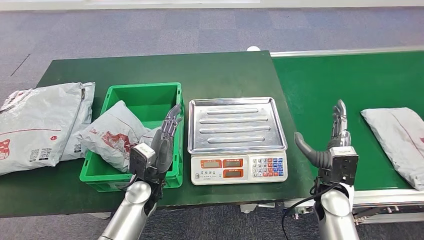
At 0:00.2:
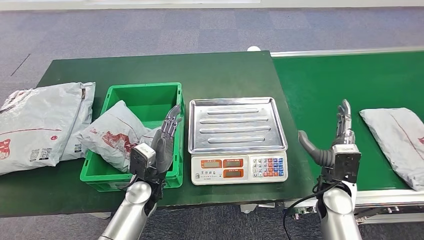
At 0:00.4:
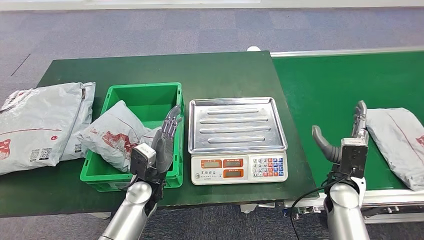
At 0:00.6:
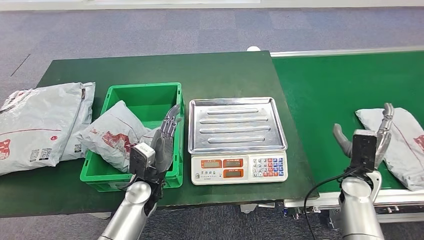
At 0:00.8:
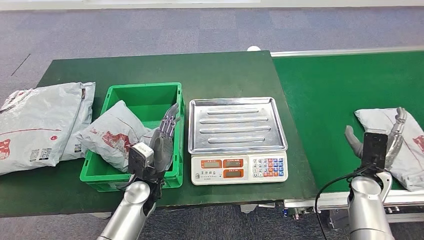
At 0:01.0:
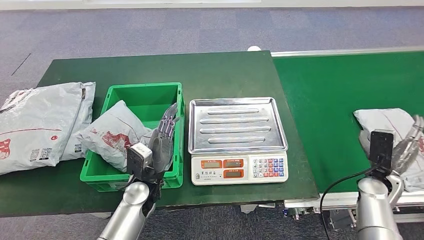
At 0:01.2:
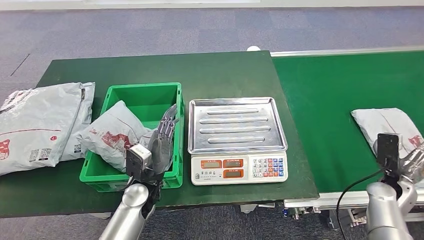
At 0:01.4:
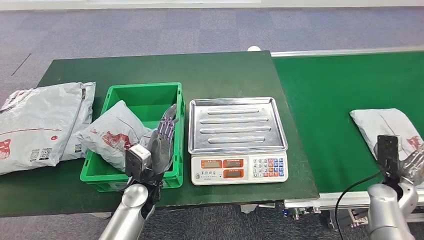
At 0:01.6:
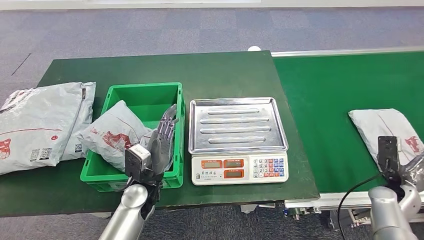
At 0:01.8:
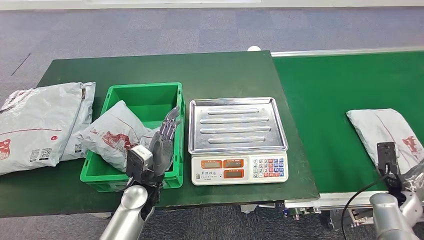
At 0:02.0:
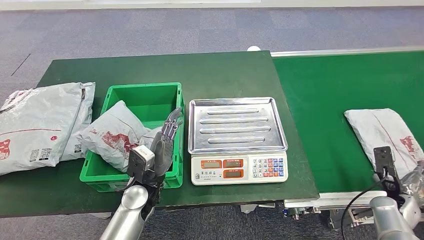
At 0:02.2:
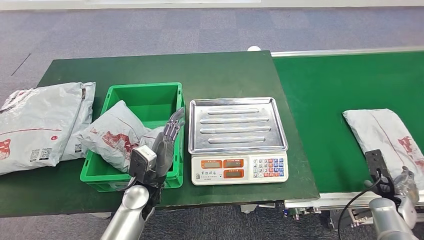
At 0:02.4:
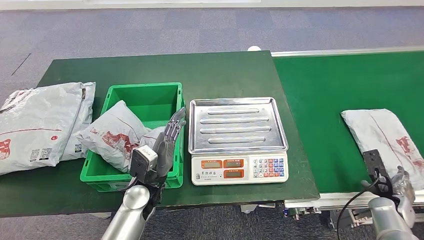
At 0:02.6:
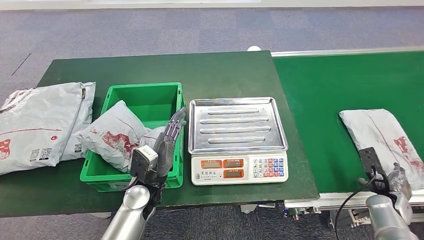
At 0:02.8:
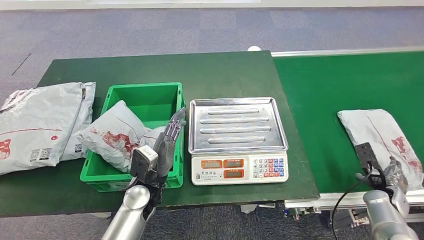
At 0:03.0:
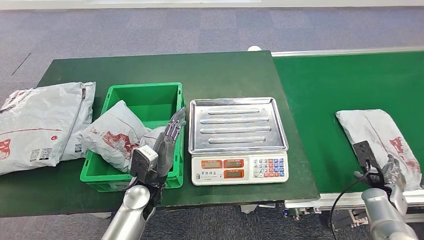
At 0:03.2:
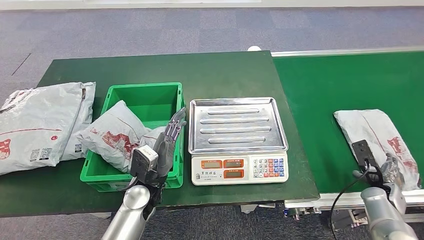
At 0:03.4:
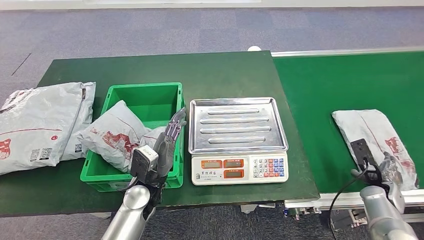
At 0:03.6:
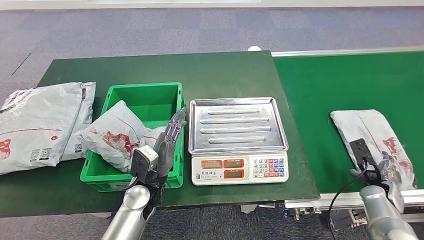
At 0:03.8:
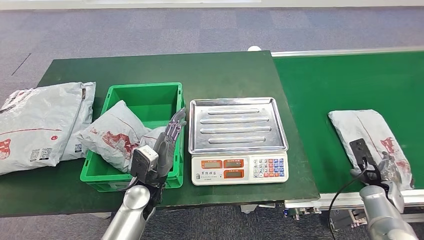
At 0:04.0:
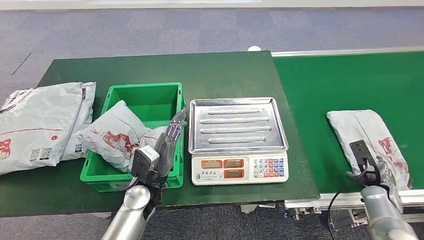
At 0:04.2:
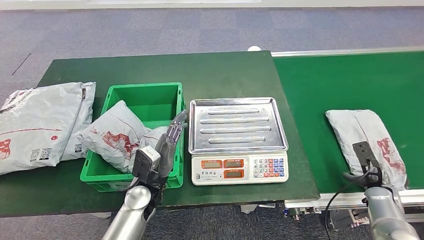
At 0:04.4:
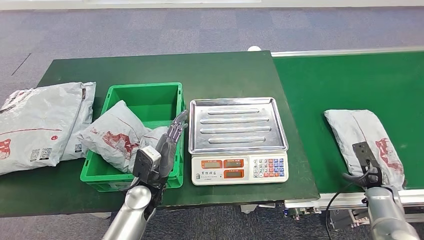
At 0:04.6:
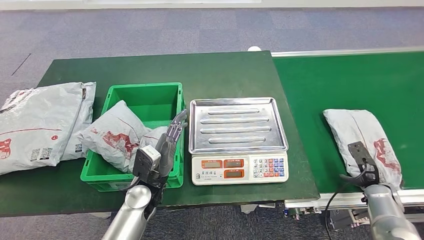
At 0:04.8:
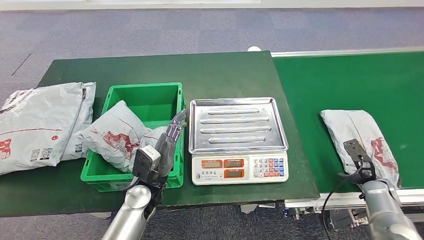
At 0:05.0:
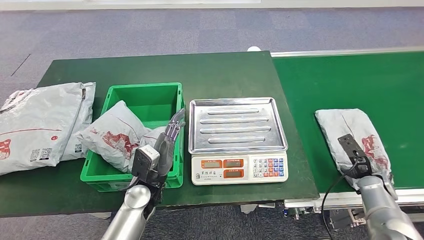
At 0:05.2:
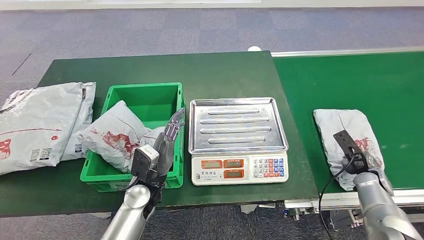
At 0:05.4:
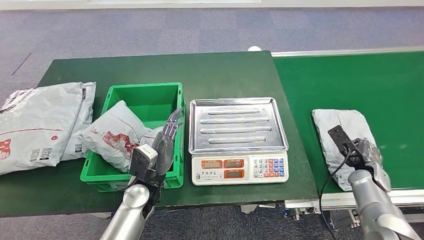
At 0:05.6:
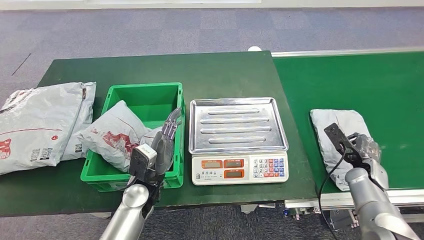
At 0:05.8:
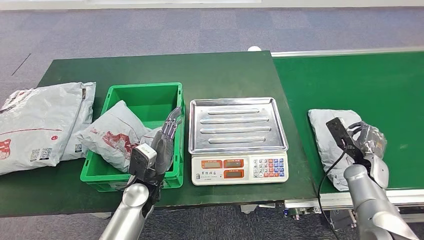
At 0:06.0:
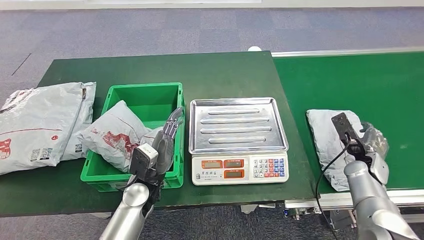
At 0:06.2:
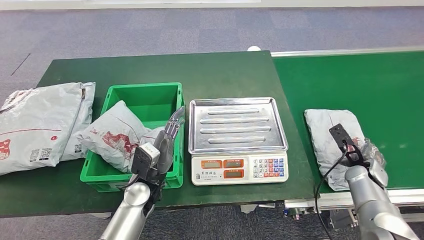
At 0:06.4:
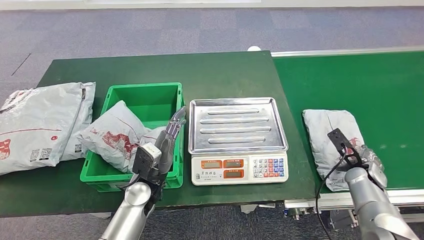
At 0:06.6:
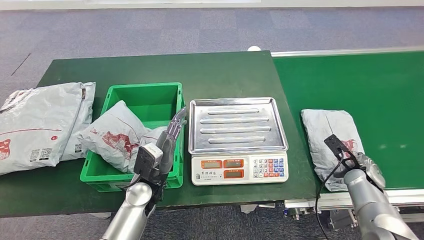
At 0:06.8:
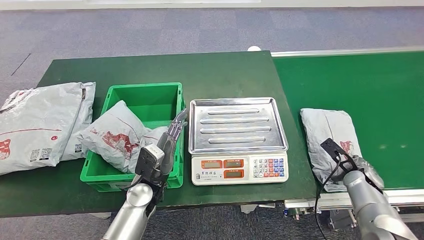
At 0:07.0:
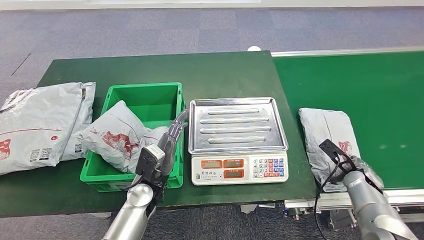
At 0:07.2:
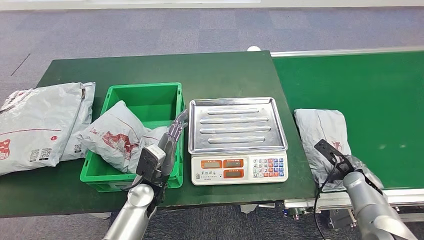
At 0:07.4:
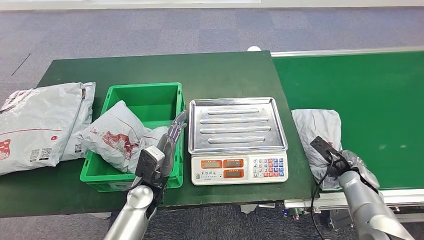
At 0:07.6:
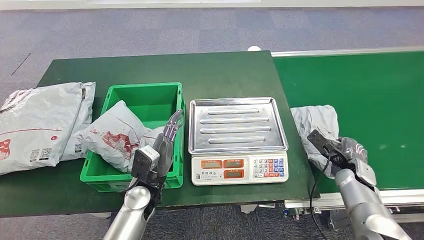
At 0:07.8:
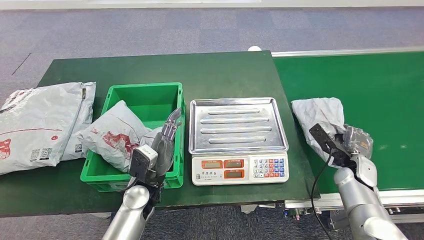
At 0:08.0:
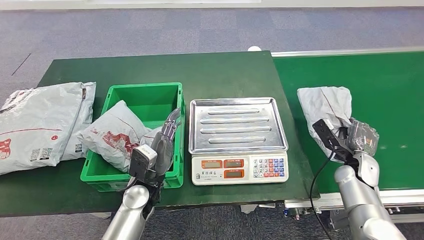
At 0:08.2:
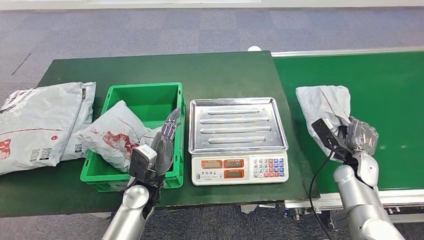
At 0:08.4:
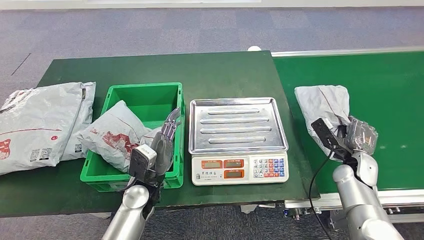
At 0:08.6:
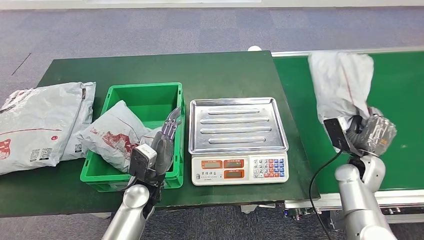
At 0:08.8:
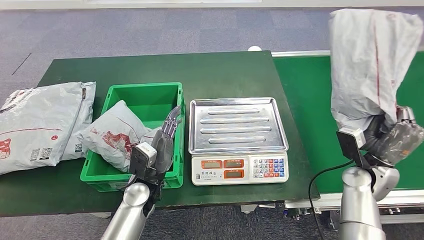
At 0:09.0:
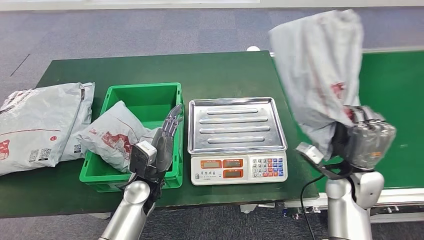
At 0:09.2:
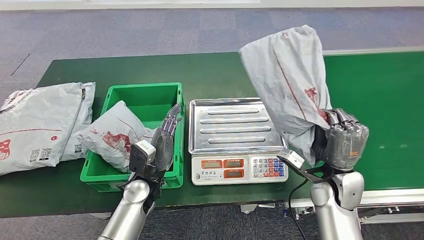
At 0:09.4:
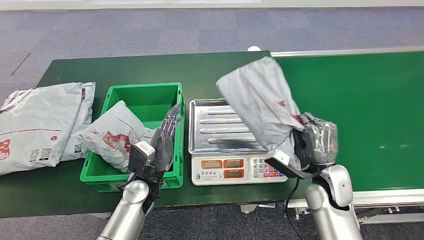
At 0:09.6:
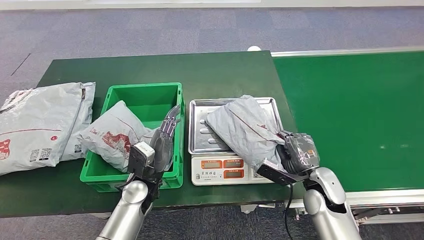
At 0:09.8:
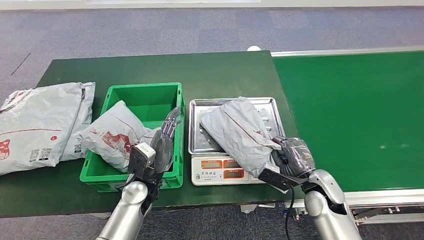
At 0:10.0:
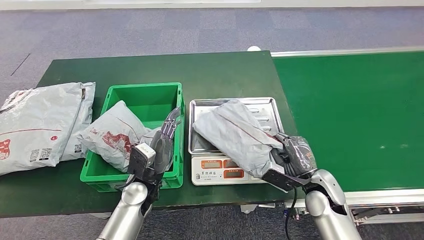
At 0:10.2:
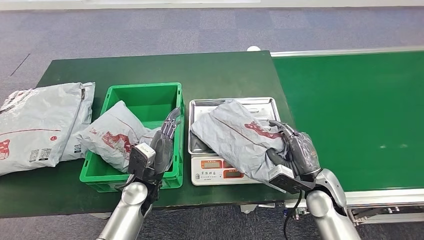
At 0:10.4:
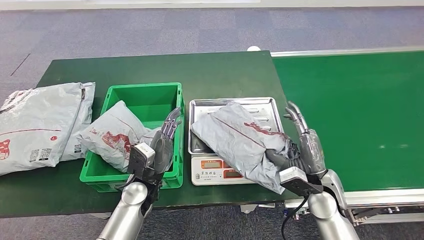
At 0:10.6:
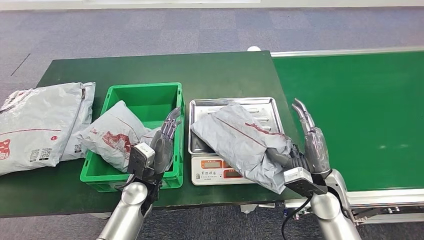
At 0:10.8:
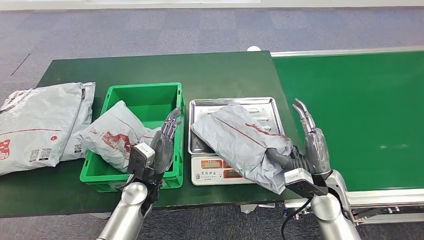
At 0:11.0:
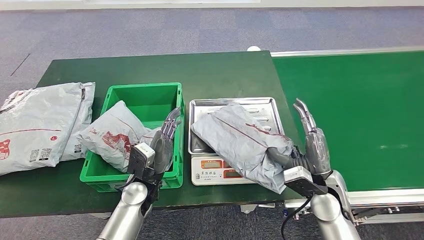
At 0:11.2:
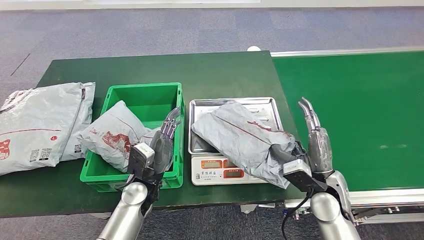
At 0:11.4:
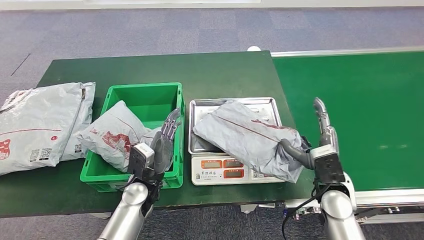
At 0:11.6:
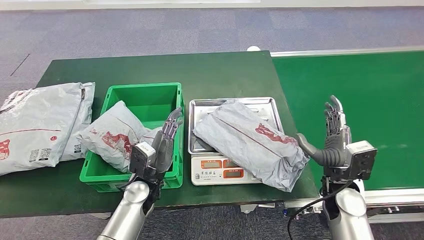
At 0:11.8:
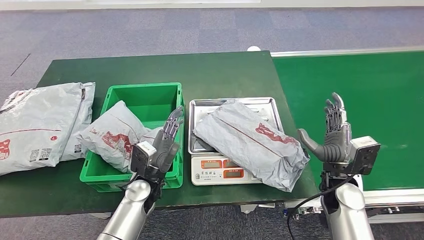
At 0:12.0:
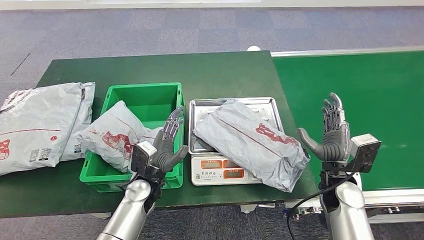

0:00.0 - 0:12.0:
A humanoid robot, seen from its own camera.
Step, 0:07.0 - 0:08.6: Pick up the parcel from the conveyor belt.
Step, 0:08.8 - 0:10.8: Place the parcel onto the inbound machine.
0:00.0 - 0:01.6: The right hand heads to the right, covering approximately 20 cm.
0:03.0 - 0:04.4: The hands stay close to where they were, moving slightly.
0:04.4 - 0:06.0: The right hand travels forward and upward by approximately 10 cm.

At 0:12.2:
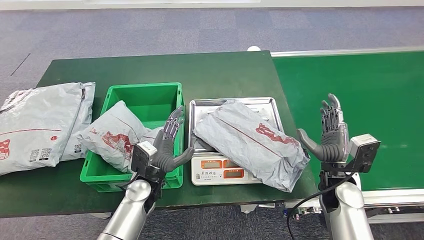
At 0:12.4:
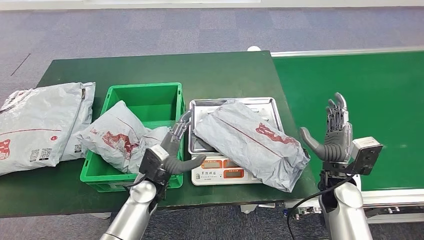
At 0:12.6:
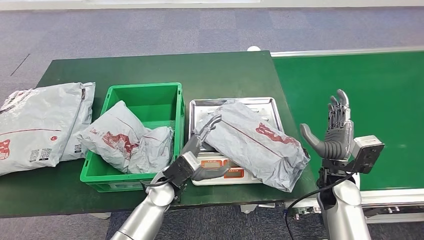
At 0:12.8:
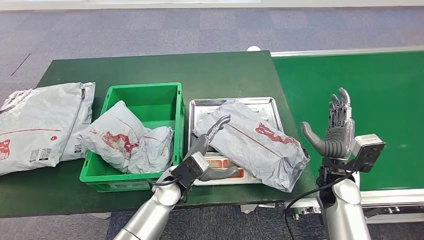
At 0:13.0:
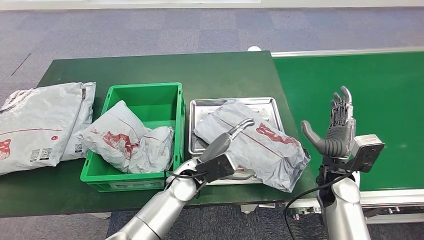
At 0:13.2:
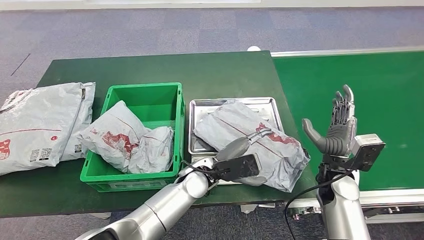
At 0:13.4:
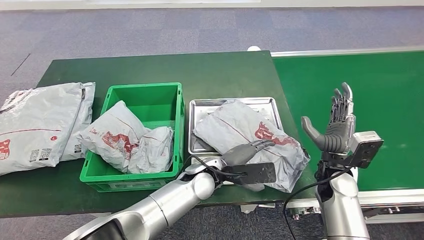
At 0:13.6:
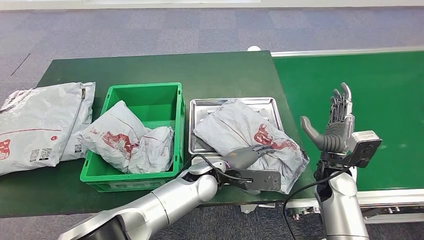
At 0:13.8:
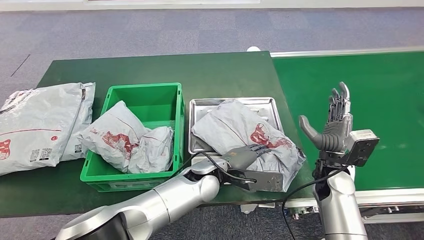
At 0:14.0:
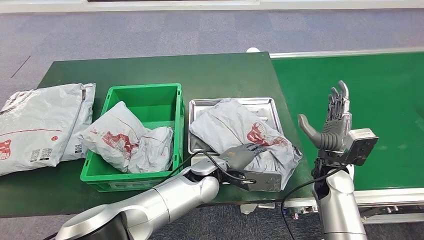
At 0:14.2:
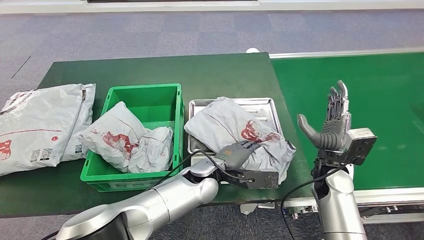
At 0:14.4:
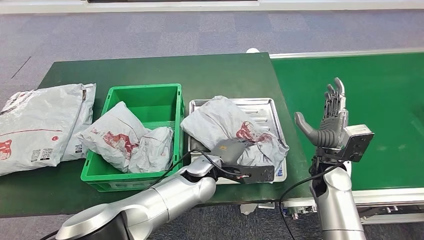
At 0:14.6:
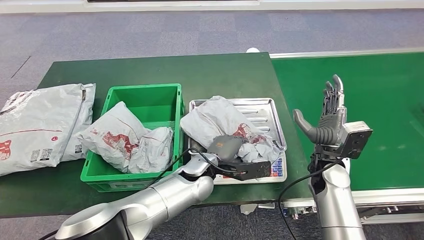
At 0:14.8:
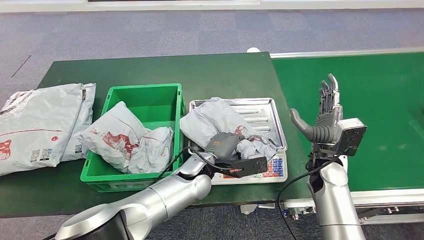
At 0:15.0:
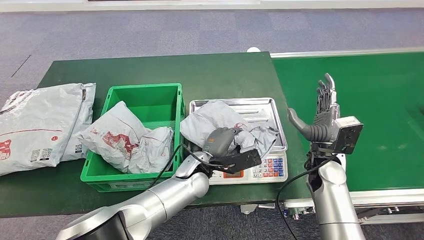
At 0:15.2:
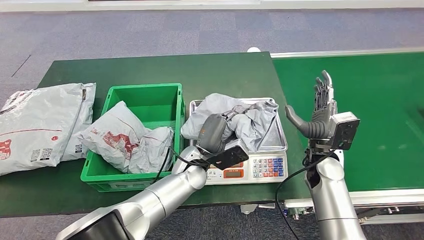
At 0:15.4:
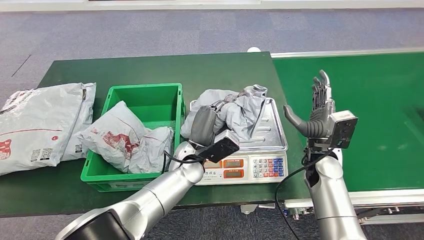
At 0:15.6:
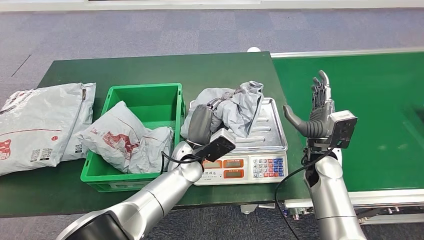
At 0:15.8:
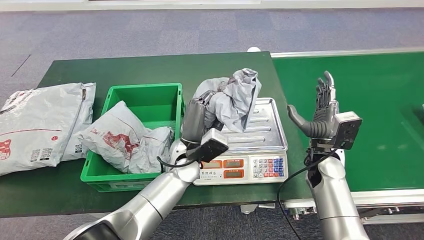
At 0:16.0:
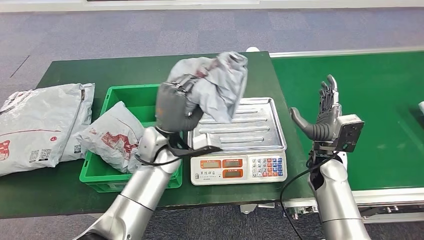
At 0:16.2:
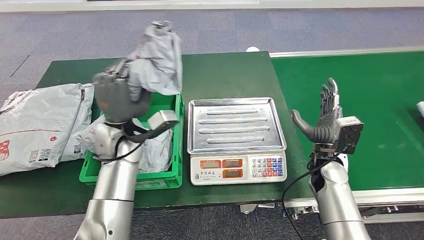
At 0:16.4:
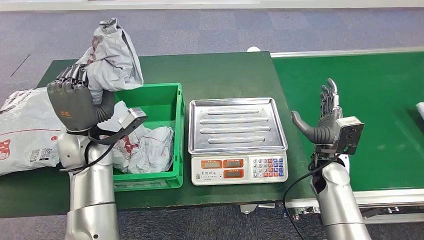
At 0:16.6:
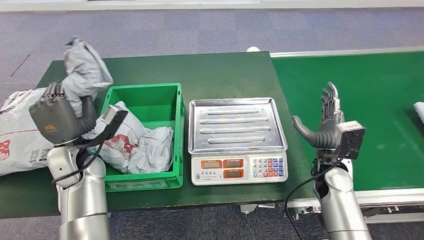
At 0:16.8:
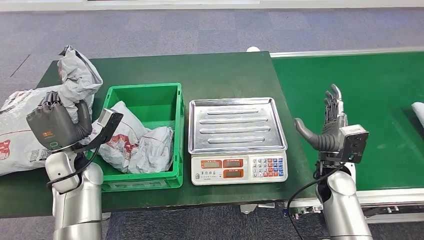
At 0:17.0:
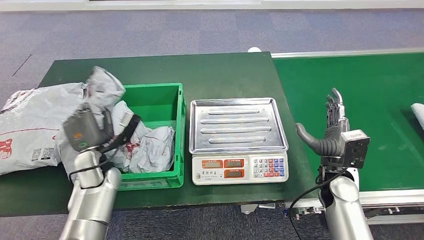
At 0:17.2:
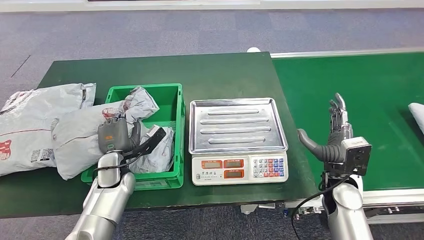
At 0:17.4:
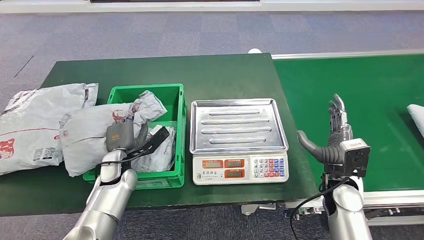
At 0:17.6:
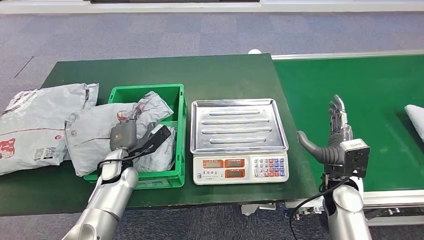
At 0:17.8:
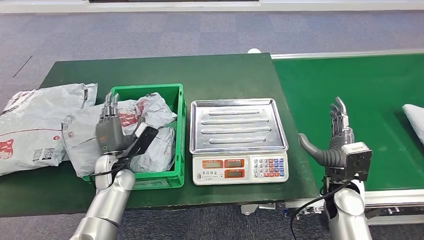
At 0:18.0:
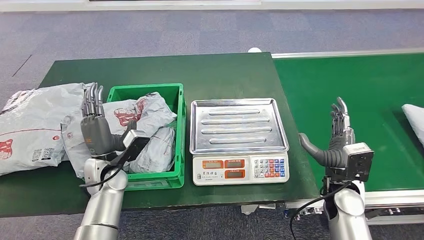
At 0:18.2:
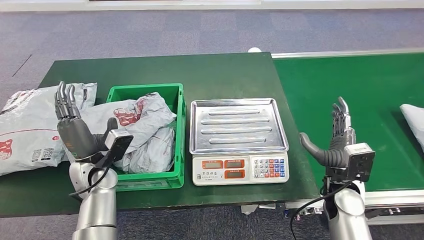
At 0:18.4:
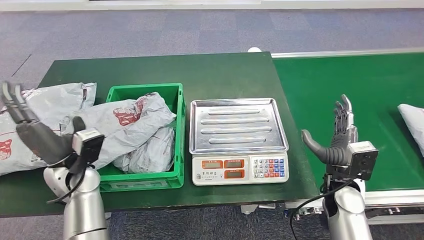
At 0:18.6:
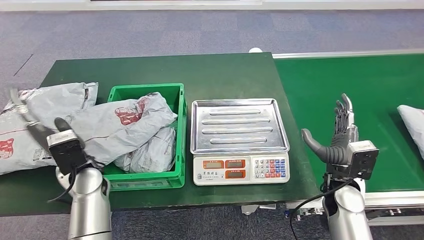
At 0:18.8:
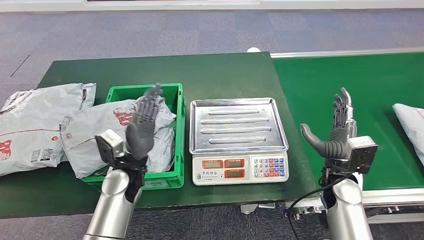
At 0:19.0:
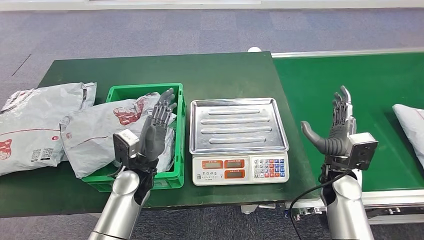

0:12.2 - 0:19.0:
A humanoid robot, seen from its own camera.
Step, 0:14.4 - 0:16.4: Pick up the parcel from the inbound machine.
Step, 0:16.6 - 0:18.4: Place the parcel into the delivery box.
0:12.2 - 0:13.6: The left hand is displaced to the right by about 15 cm.
